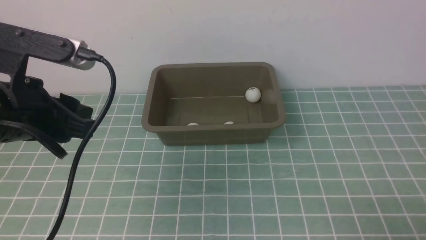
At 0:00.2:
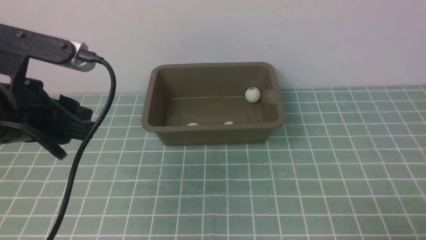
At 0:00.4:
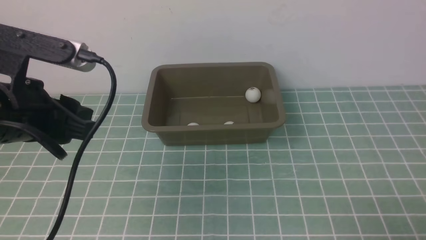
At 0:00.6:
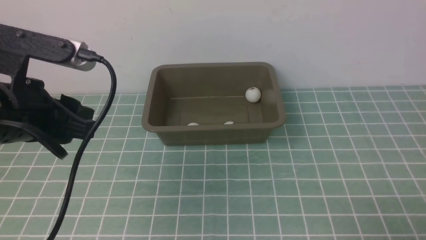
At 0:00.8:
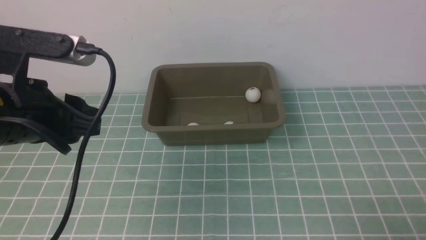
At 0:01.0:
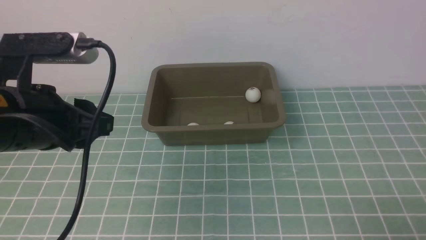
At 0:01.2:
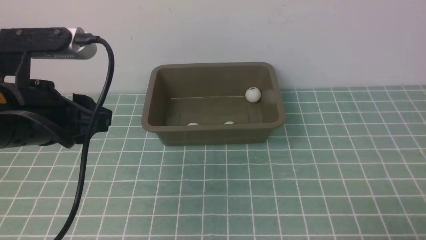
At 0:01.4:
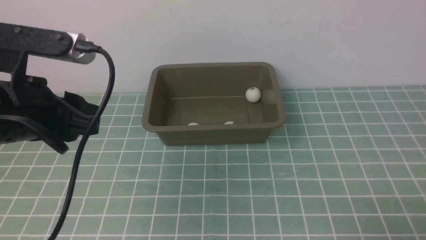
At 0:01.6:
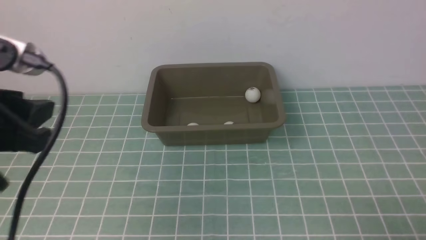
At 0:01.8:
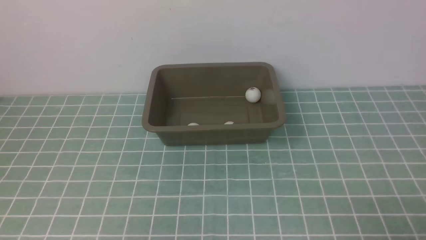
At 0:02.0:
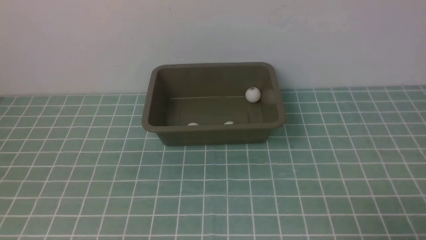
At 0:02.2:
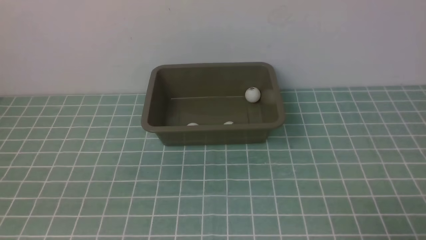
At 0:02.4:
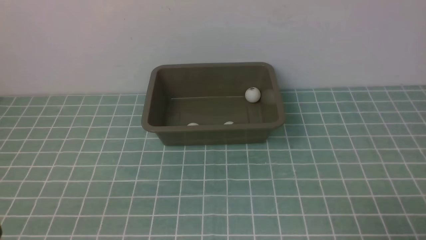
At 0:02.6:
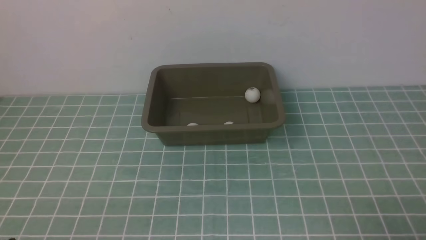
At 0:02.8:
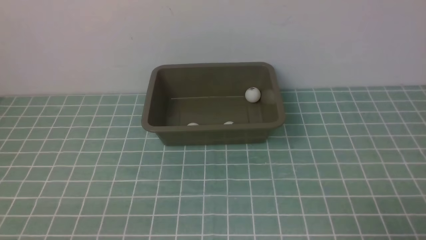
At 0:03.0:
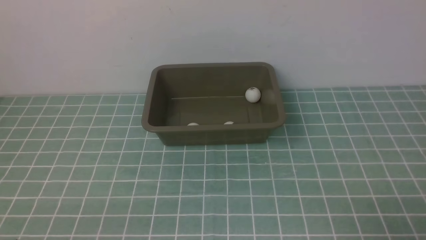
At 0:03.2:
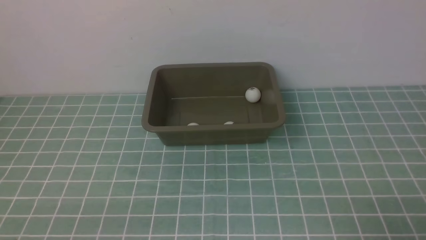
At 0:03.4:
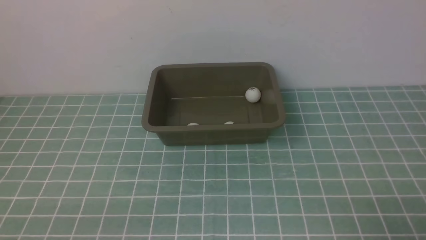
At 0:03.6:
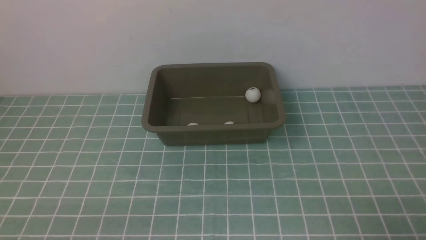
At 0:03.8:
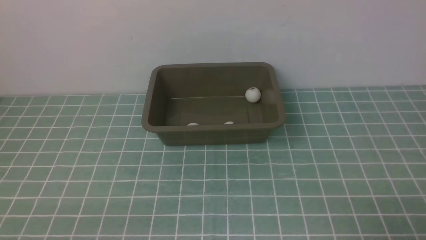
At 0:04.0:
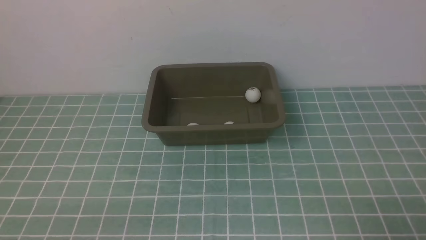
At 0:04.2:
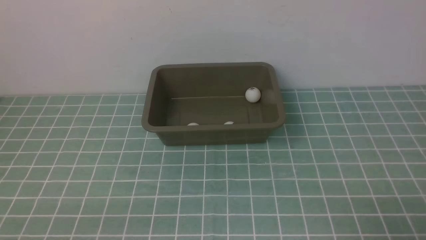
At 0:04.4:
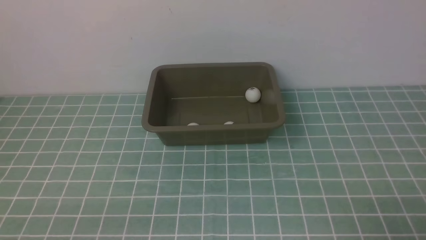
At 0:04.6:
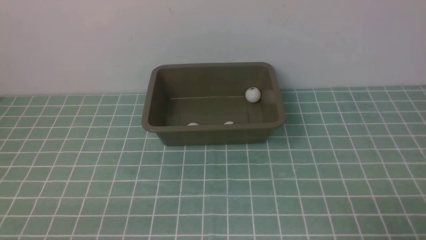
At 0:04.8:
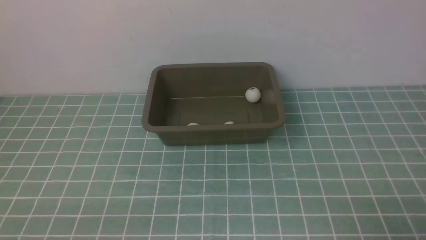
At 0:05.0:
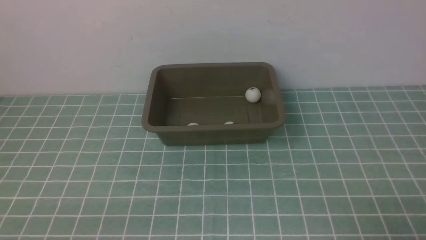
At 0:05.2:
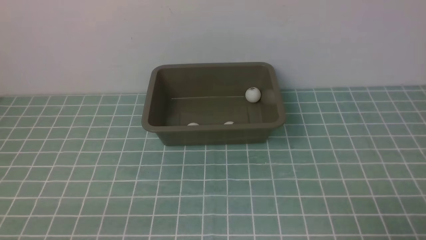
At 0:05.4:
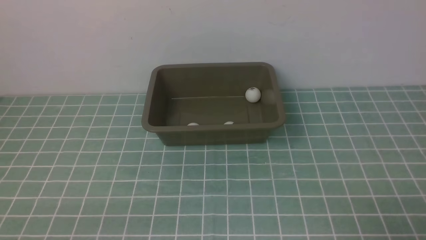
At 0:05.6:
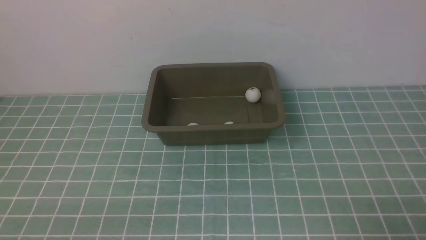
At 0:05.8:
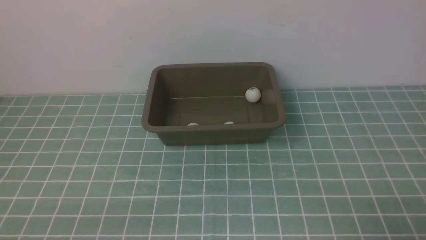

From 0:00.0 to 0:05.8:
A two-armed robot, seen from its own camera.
From 0:00.0 to 0:01.4: The grippers move only a little.
From 0:01.4 to 0:02.8: The left gripper travels downward and backward by about 20 cm.
From 0:02.8 to 0:05.8: Both grippers stay about where they are.

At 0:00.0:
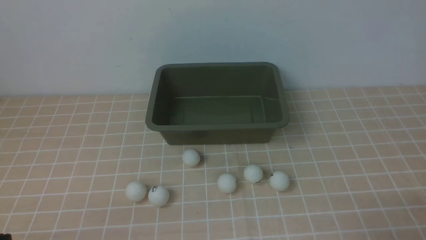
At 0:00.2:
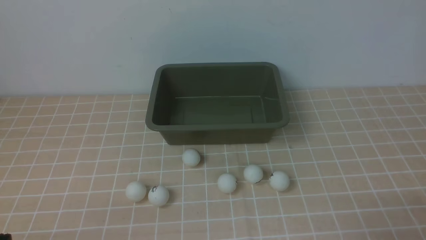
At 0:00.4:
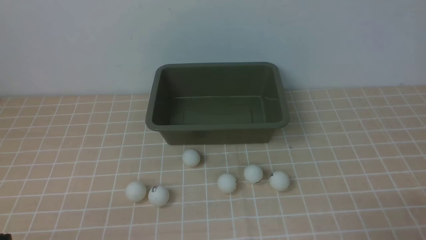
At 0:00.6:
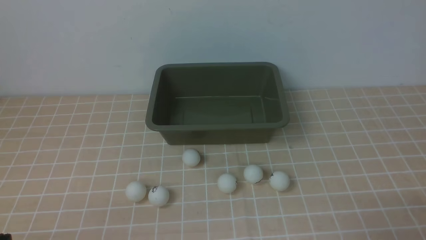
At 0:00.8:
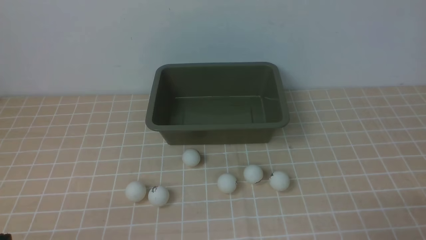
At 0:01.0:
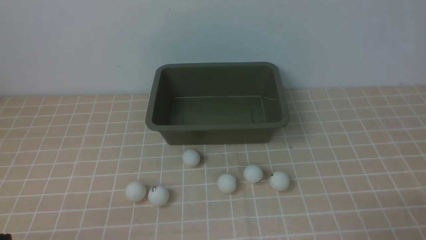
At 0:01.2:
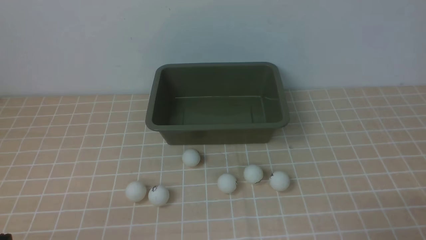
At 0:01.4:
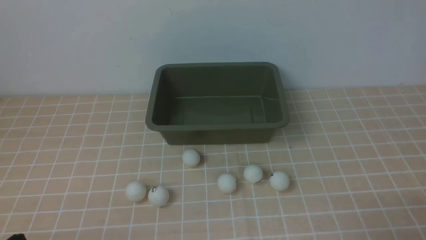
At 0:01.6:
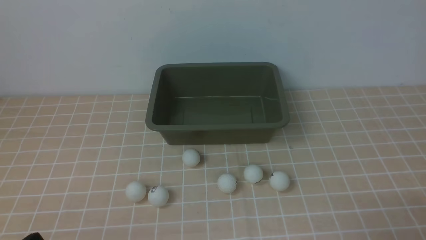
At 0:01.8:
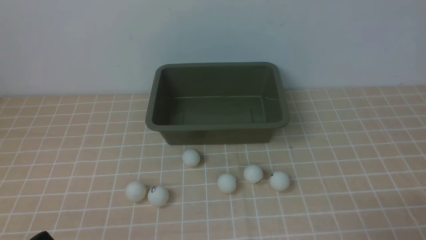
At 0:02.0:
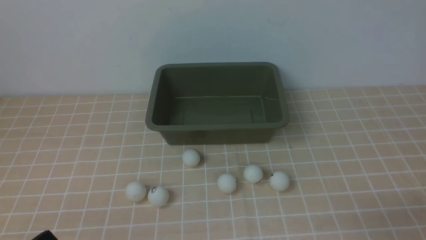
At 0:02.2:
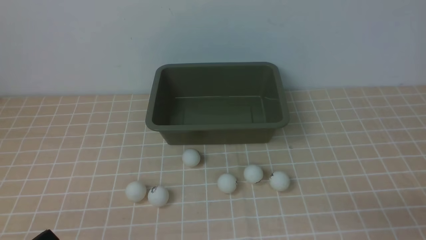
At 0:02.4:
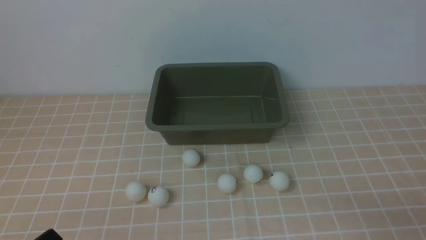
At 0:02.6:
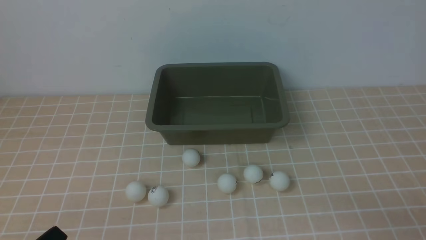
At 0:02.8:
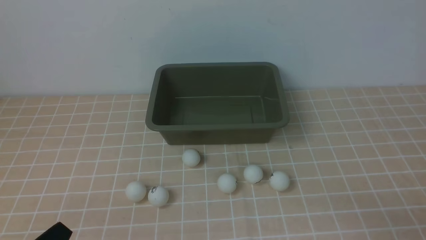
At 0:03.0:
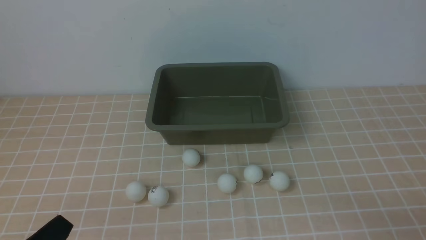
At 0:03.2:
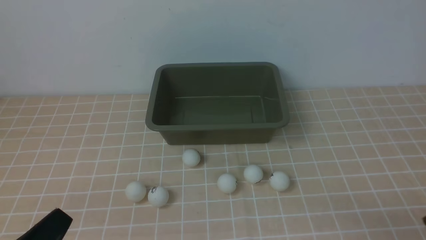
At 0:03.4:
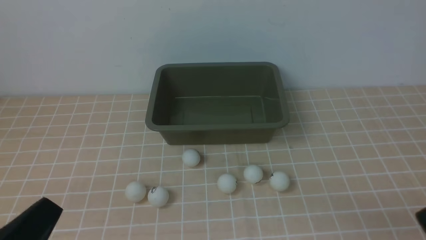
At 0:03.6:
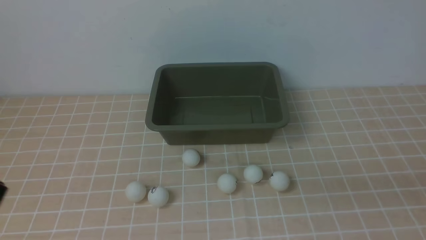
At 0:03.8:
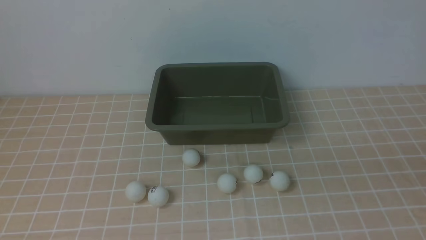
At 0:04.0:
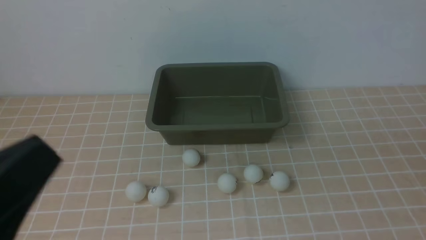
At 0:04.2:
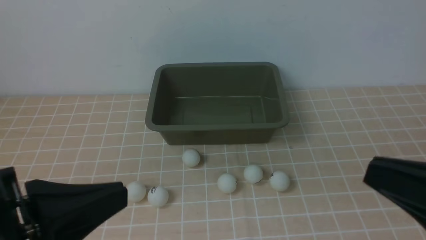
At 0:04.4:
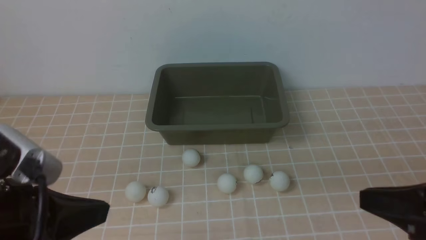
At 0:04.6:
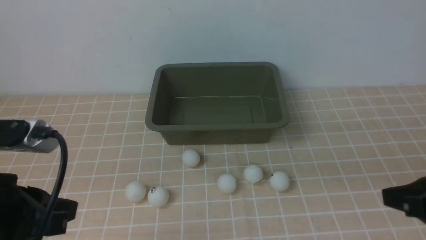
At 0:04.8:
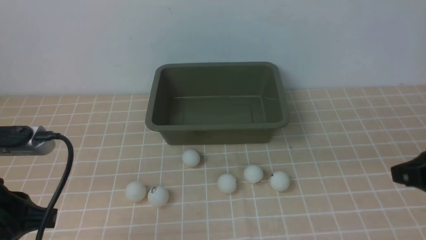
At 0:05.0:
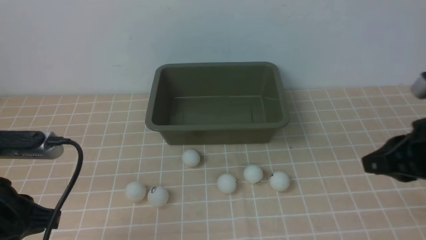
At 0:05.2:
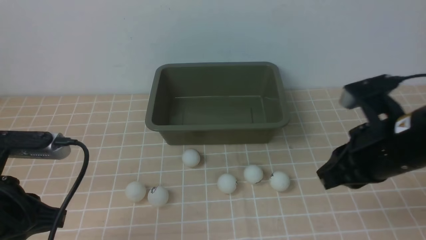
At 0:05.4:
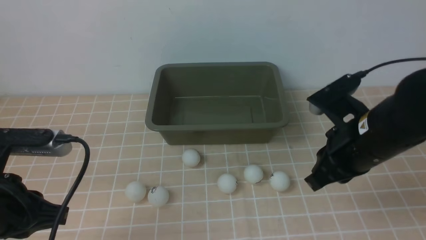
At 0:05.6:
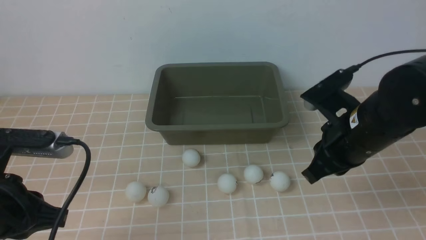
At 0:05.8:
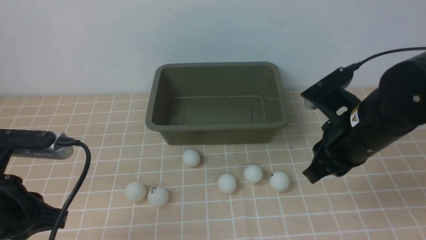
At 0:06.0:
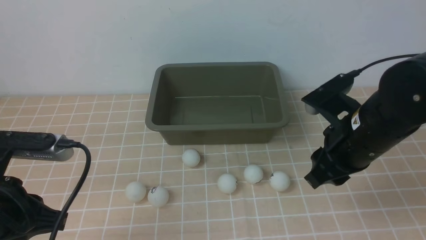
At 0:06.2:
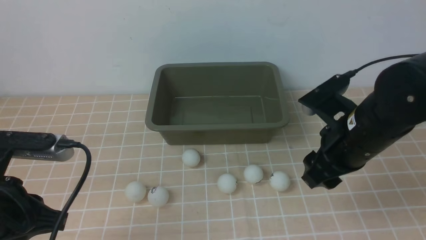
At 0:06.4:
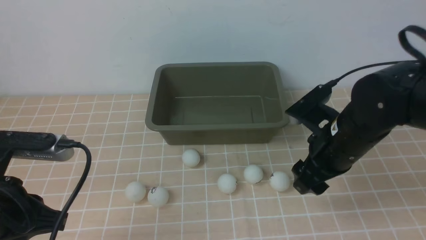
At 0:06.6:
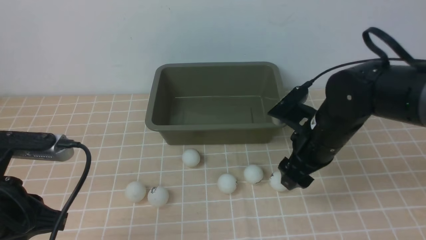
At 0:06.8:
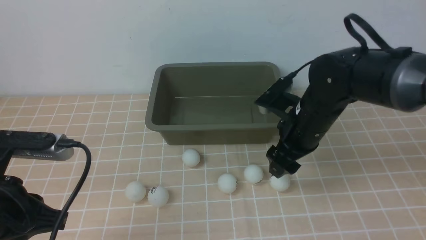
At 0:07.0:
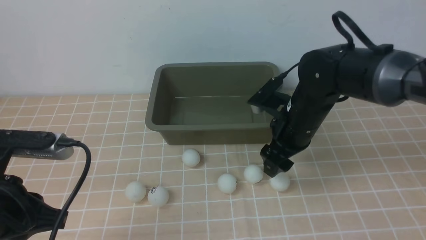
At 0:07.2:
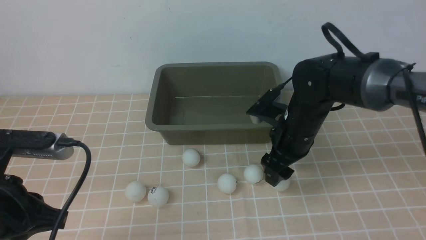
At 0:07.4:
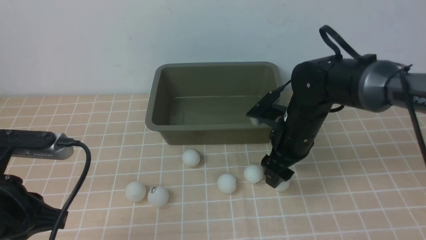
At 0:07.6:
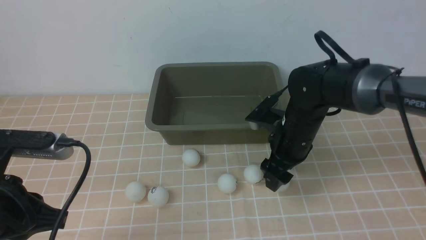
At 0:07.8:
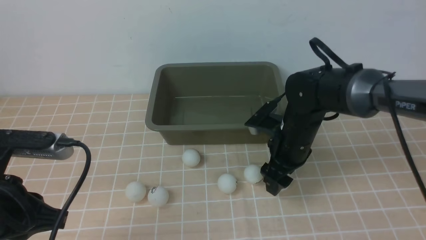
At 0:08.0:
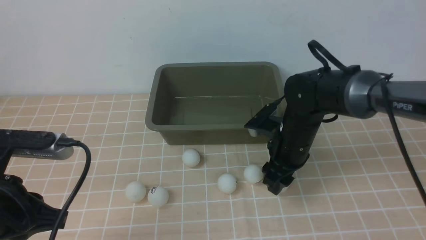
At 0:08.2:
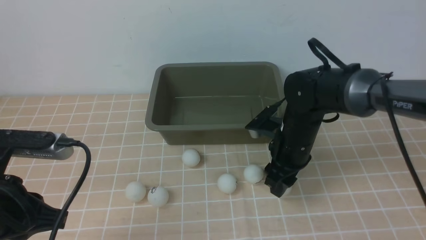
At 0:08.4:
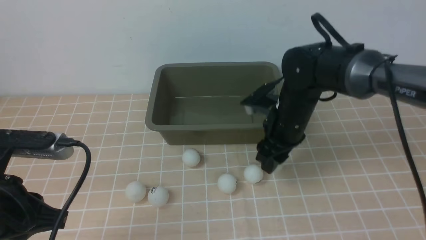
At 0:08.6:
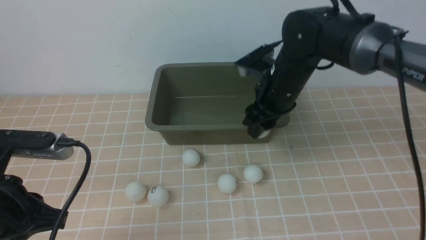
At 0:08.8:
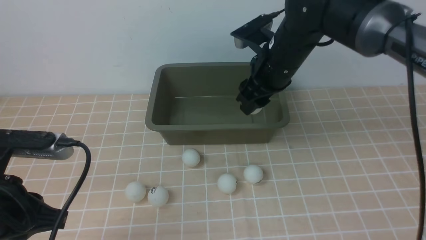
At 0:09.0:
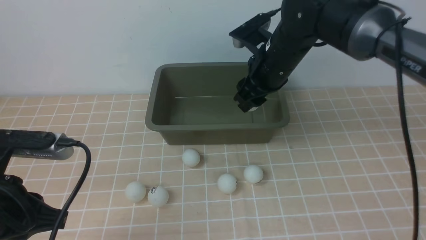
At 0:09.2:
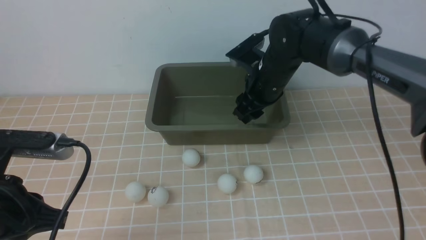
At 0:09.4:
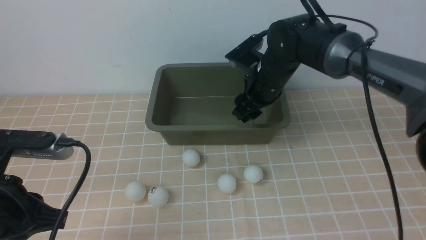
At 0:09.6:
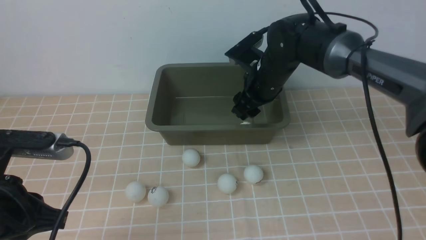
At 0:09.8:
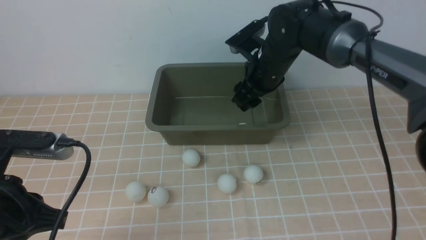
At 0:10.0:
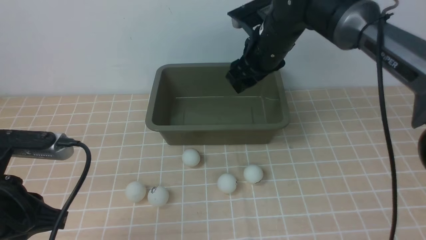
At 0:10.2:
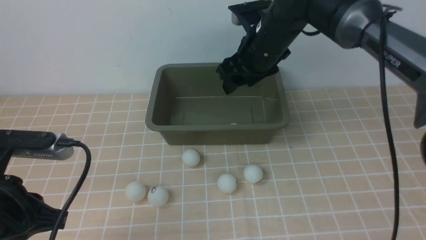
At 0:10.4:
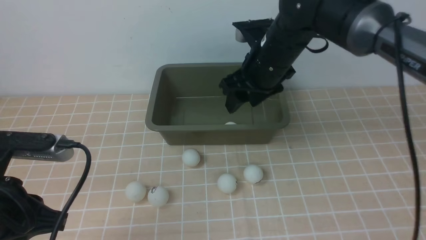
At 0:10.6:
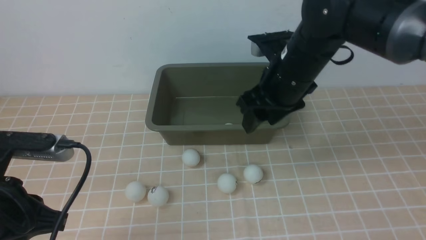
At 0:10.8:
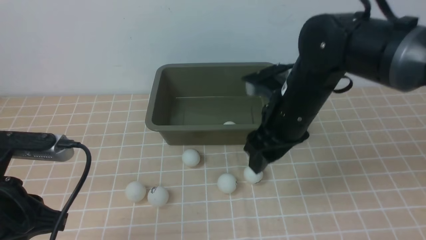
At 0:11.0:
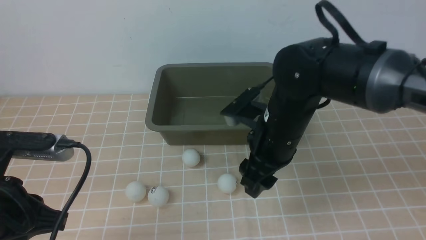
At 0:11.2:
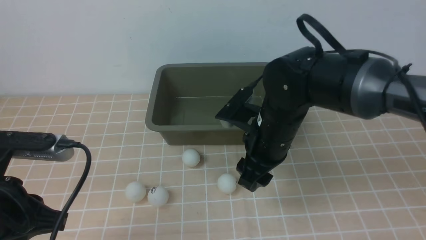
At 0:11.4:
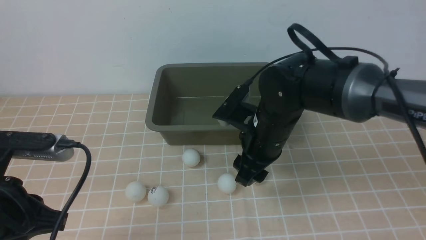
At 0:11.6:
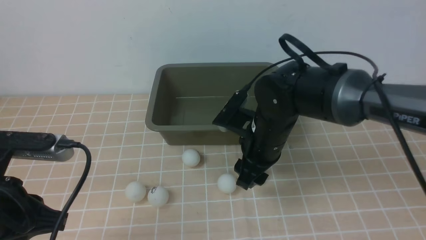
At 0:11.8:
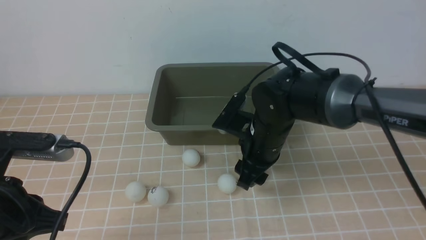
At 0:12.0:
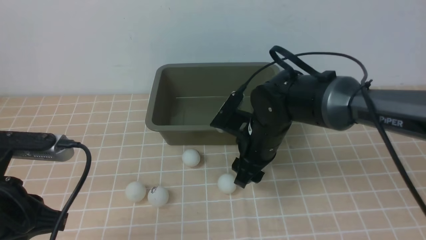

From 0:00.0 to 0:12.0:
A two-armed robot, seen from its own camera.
Step, from 0:00.0 to 0:08.2: use the right arm to clamp the table tennis ball closest to it.
Step, from 0:08.4 to 0:10.4: use the right arm to put the table tennis ball into the box.
From 0:03.0 to 0:04.4: The right gripper is displaced upward and to the left by about 15 cm. The left gripper is displaced upward and forward by roughly 10 cm.
From 0:04.4 to 0:06.0: The left gripper is displaced forward and downward by some 10 cm. Meanwhile the right gripper goes approximately 15 cm forward and to the left.
From 0:06.0 to 0:07.6: The right gripper shifts about 15 cm forward, downward and to the left, and opens up.
From 0:07.6 to 0:09.0: The right gripper is displaced upward and forward by approximately 10 cm.
From 0:09.0 to 0:10.4: There are only small adjustments of the grippers.
From 0:10.4 to 0:12.0: The right gripper is displaced downward and backward by approximately 10 cm.
